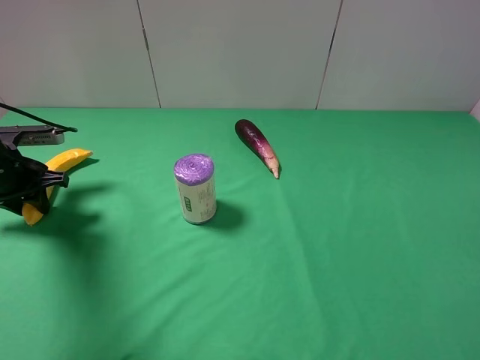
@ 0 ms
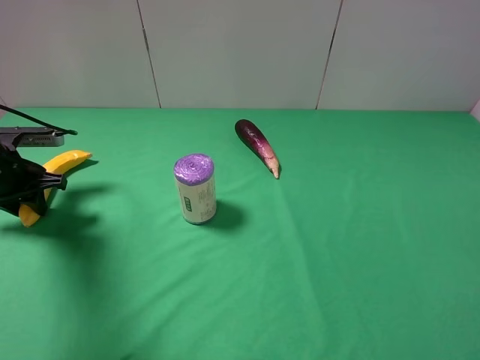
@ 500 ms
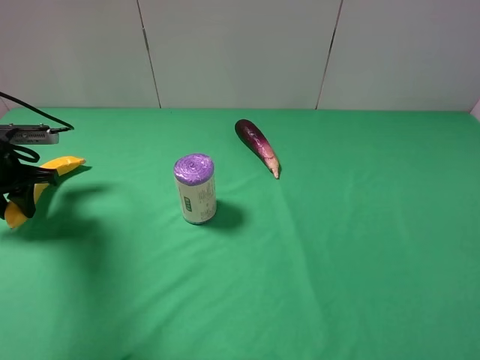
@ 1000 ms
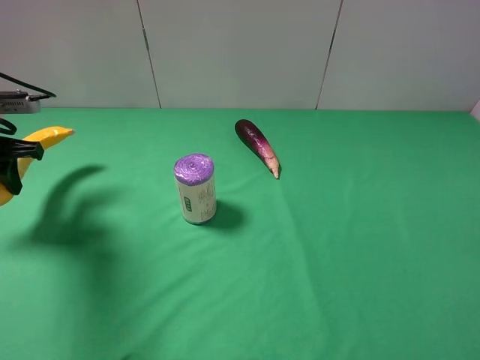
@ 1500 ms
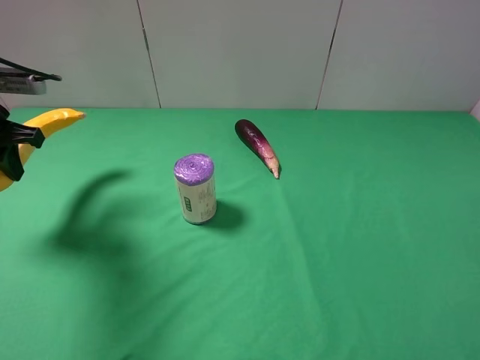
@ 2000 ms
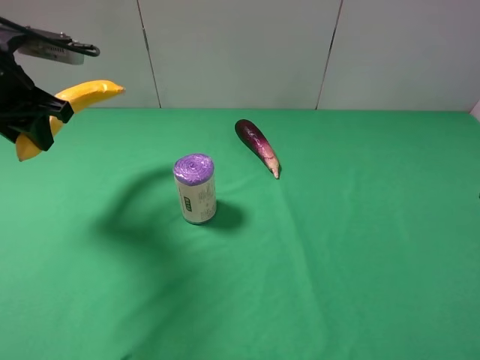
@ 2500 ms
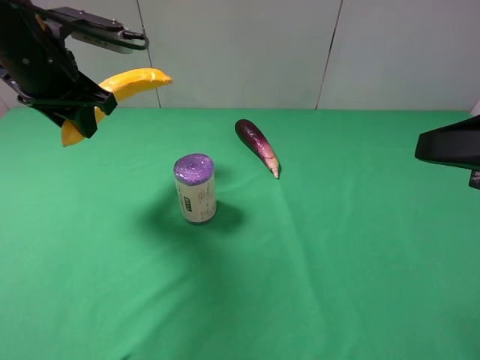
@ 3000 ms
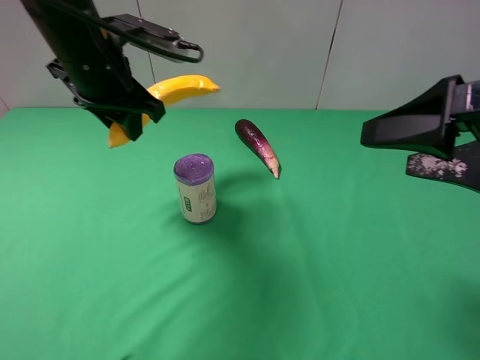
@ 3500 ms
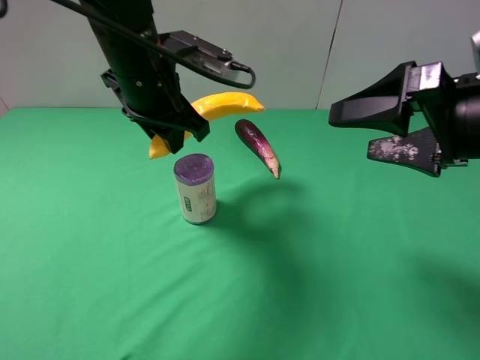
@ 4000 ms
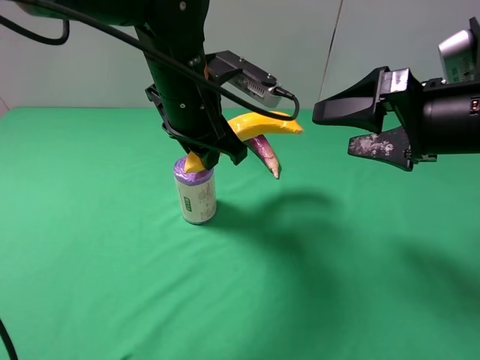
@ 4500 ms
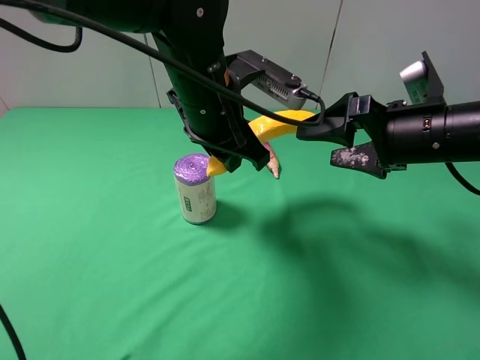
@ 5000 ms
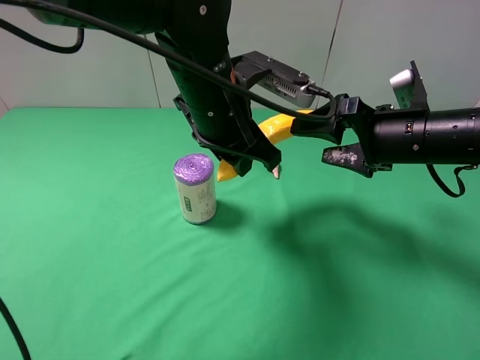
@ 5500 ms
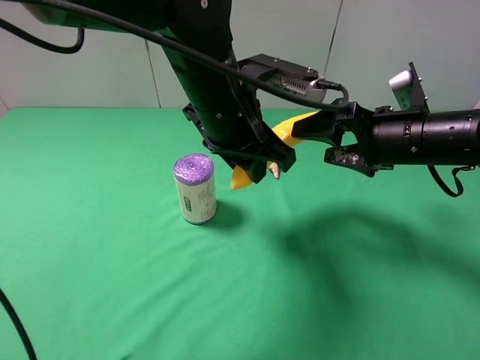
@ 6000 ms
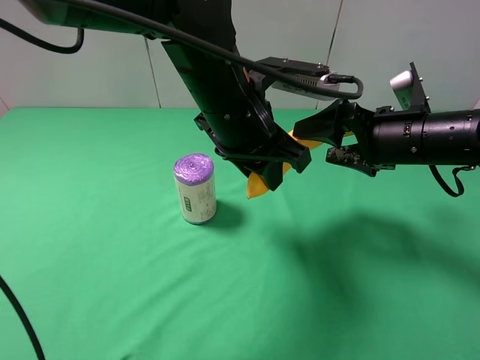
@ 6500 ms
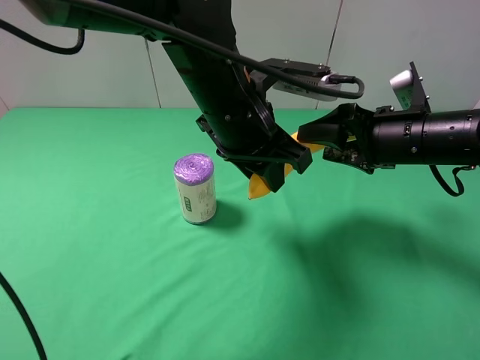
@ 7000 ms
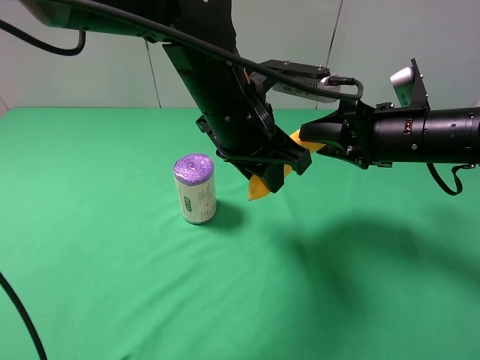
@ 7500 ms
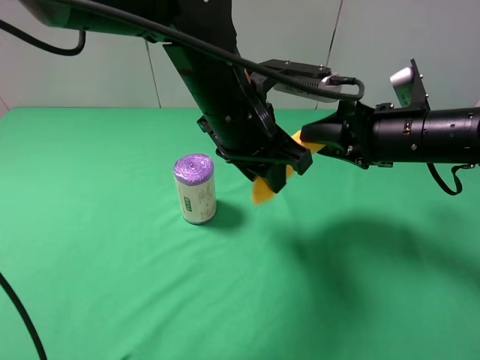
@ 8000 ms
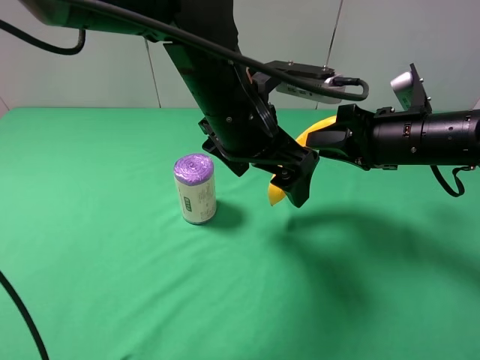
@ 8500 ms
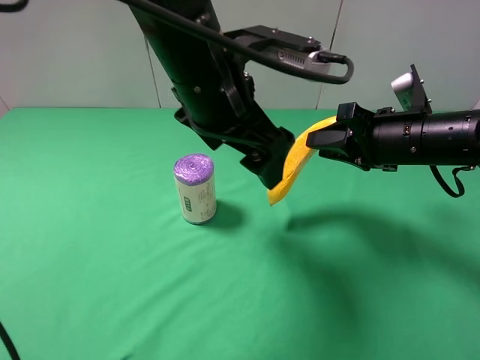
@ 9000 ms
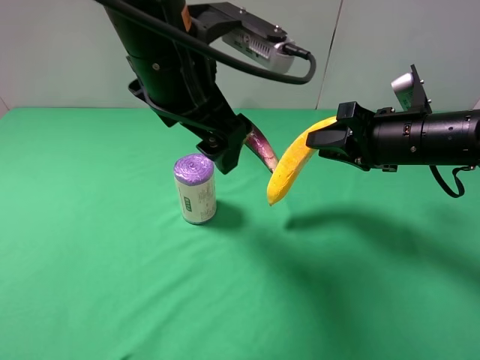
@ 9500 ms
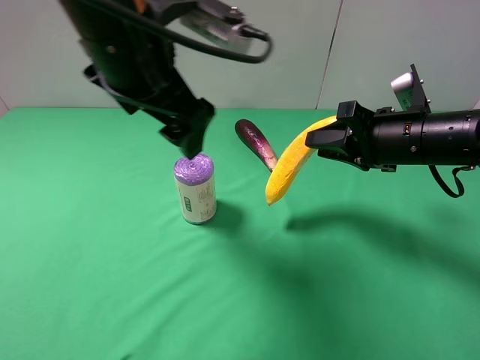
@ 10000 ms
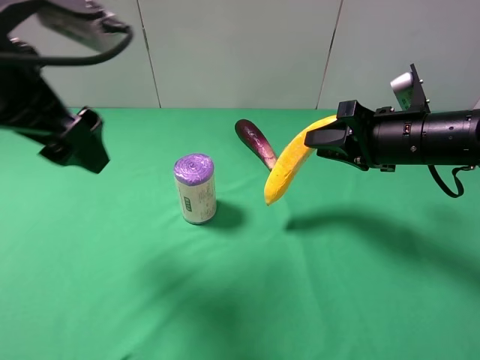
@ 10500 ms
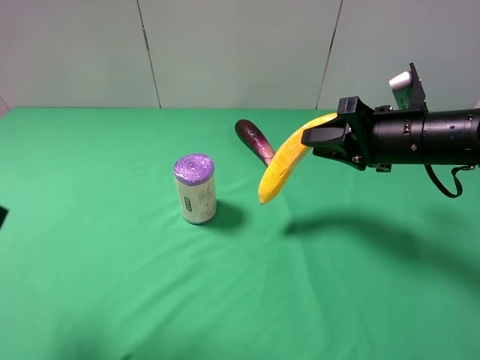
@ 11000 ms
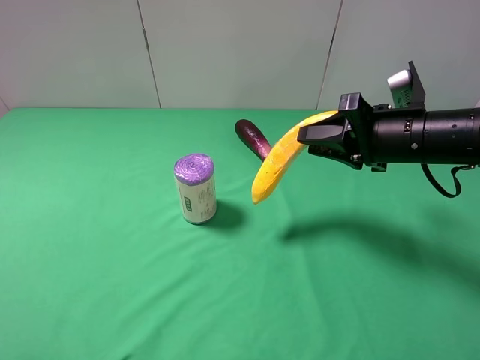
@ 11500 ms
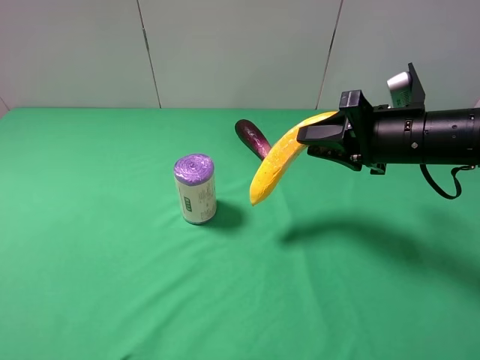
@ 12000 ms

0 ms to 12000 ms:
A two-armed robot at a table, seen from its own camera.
Task of the whole recording: use the left gripper to pick up the item and transfer it from the left gripper to the right gripper.
Step, 500 ms to 8000 ms: Pass the banana to the right gripper.
0 ms to 2000 ms: The left gripper is displaced upward by roughly 10 cm.
2000 ms to 4000 ms: The left gripper travels to the right by about 25 cm; the right gripper moves forward, some 20 cm.
4000 ms to 6000 ms: The right gripper shifts about 10 cm downward and forward. The left gripper shifts approximately 10 cm to the right.
6000 ms to 8000 ms: The right gripper closes up.
8000 ms to 10000 ms: The left gripper moves to the left and upward, about 15 cm, and opens its fingers.
10000 ms to 12000 ms: The left gripper moves backward and to the left, approximately 35 cm.

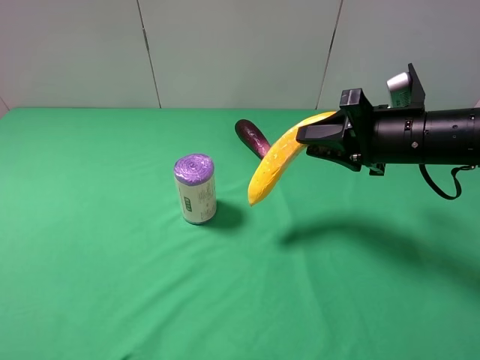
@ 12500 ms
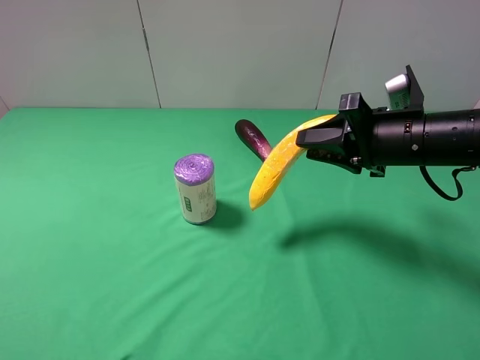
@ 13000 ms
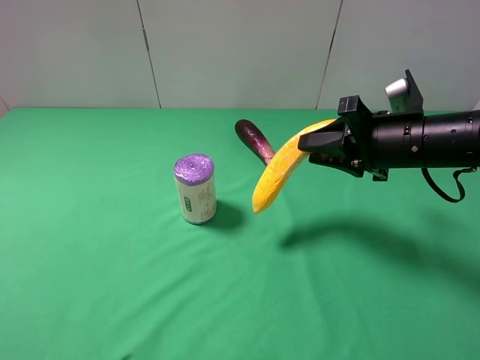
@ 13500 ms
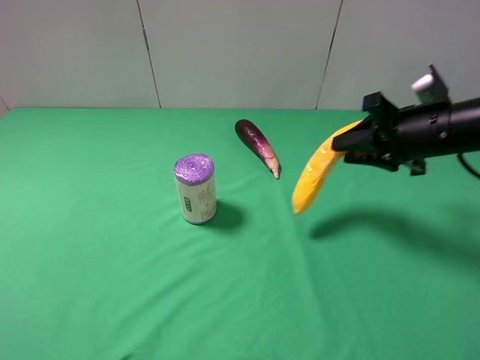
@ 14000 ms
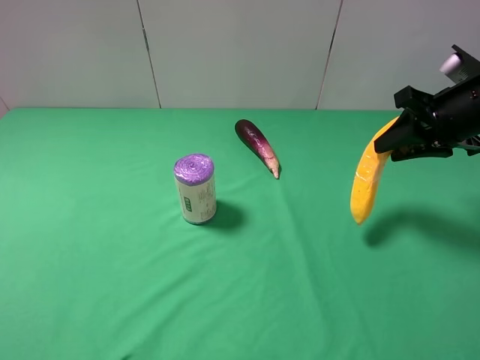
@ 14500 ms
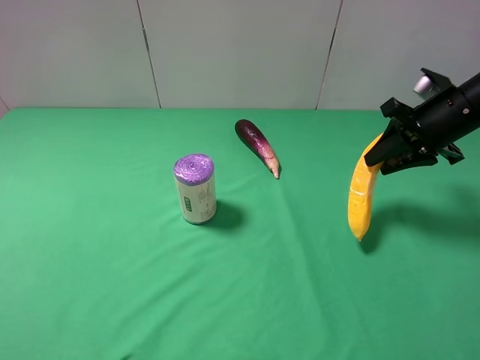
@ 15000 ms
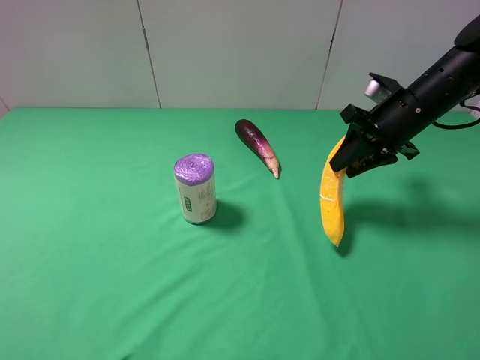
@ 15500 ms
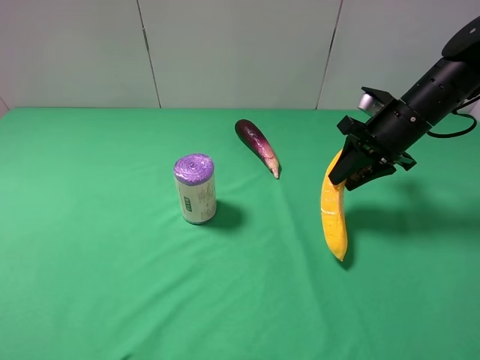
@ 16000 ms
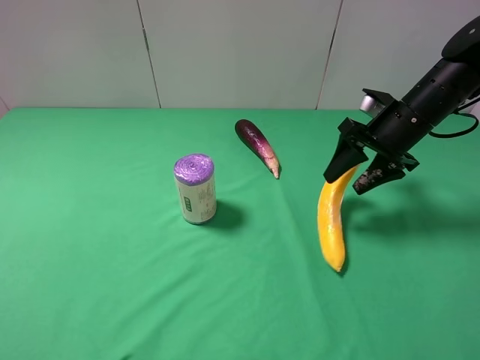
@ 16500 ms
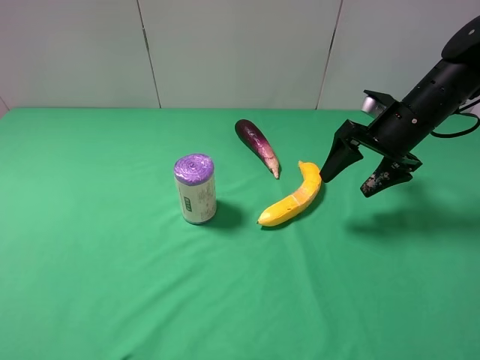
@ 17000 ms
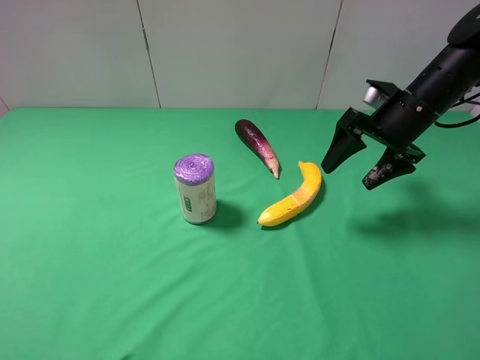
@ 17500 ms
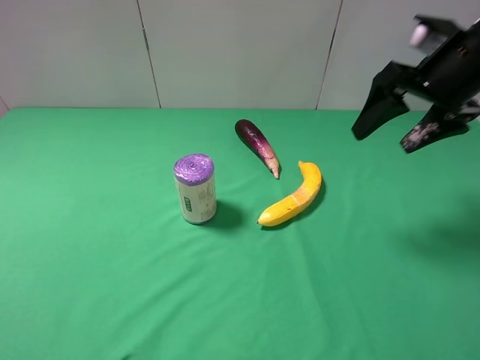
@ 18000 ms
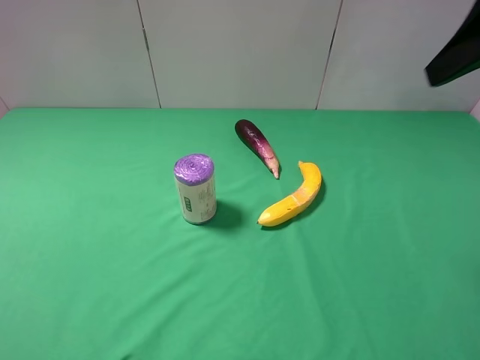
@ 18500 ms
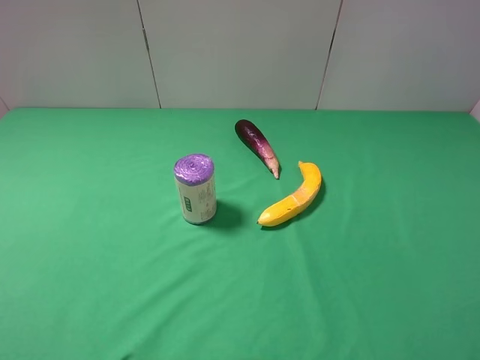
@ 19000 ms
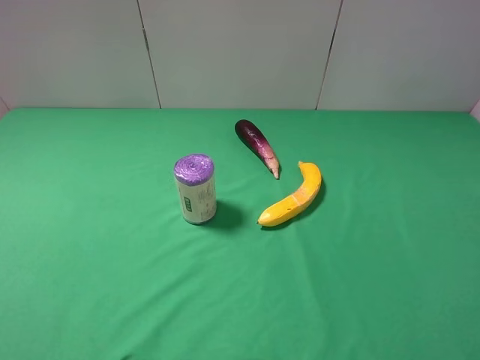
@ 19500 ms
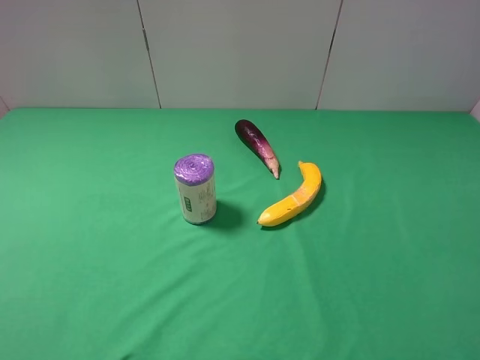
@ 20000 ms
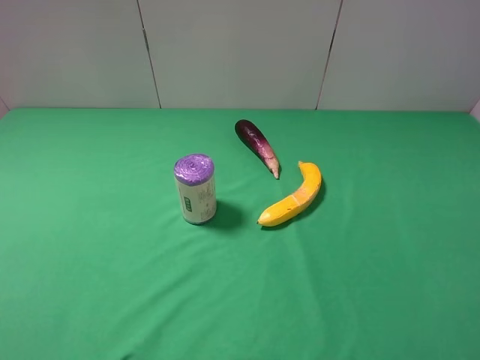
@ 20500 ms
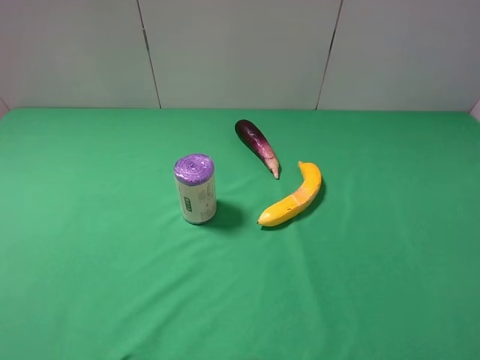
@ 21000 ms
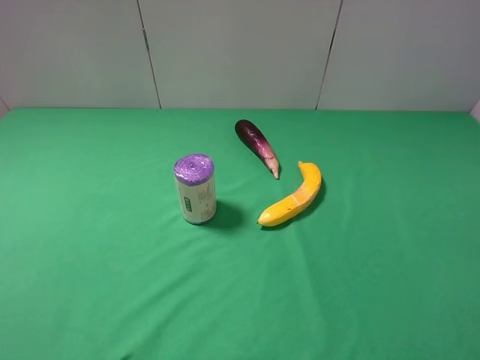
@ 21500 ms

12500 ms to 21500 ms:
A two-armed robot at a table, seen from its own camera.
Task of the whole recording: use the left gripper to pick up the item and transfer it from the left gripper to the right gripper.
Step, 12500 ms to 18500 ms: The right gripper places banana on the right side of the table.
12500 ms to 14500 ms: The right gripper heads to the right, covering some 10 cm.
14500 ms to 17000 ms: The right gripper travels downward by some 5 cm, and opens up.
17000 ms to 19500 ms: The right gripper goes approximately 35 cm backward and upward.
